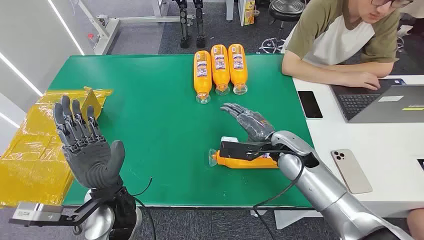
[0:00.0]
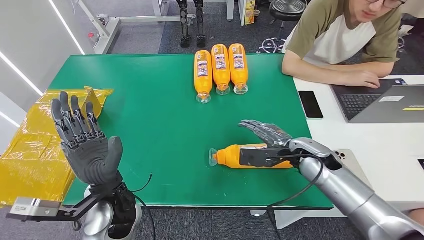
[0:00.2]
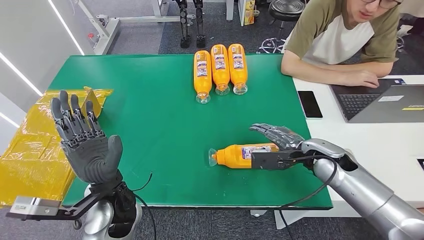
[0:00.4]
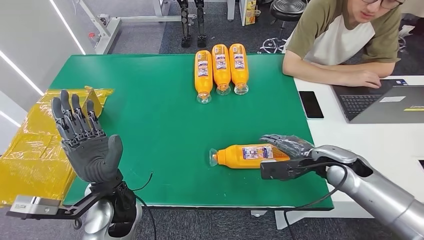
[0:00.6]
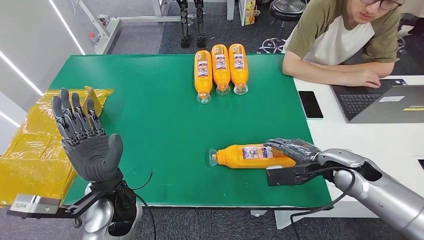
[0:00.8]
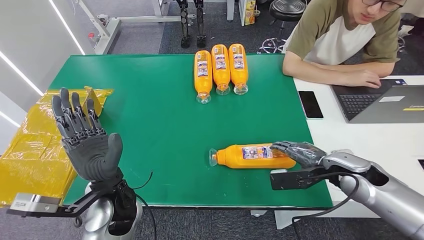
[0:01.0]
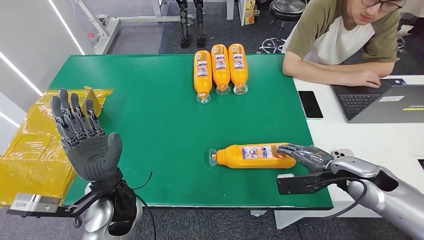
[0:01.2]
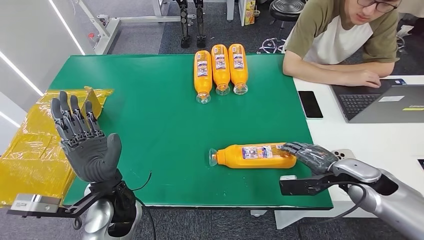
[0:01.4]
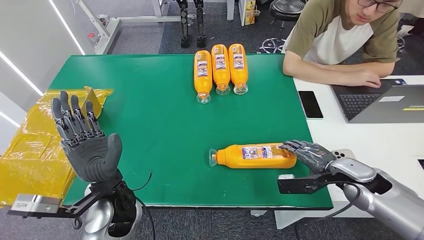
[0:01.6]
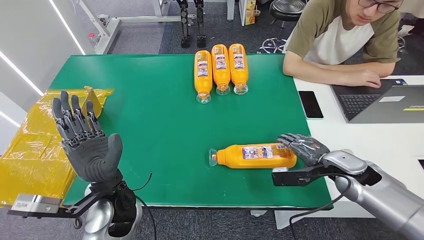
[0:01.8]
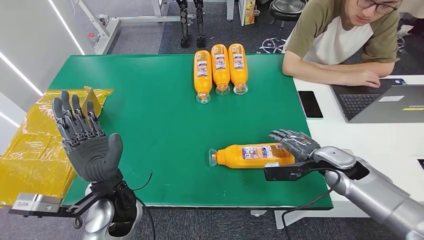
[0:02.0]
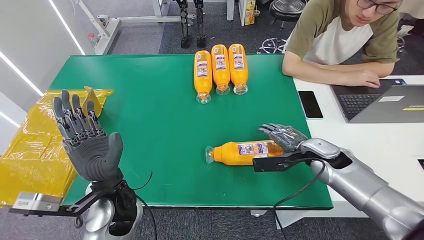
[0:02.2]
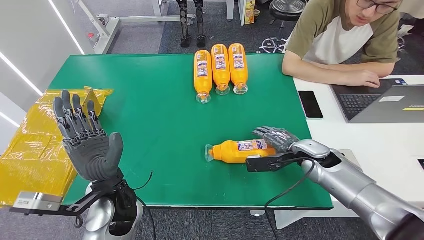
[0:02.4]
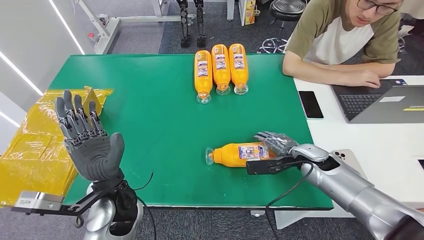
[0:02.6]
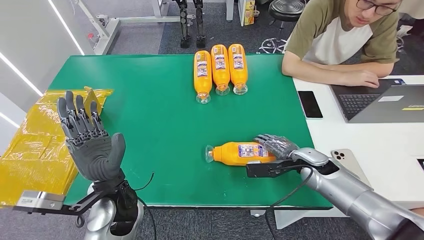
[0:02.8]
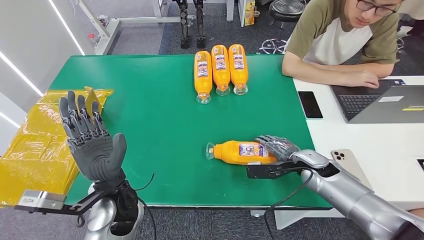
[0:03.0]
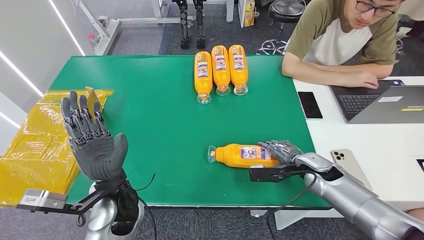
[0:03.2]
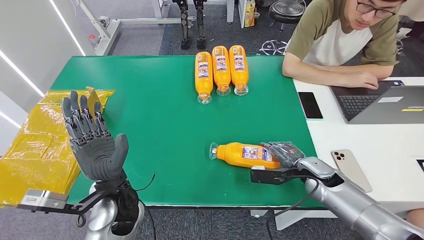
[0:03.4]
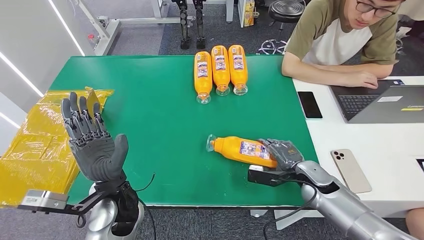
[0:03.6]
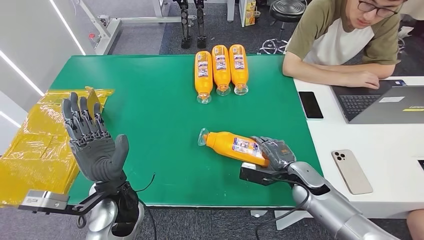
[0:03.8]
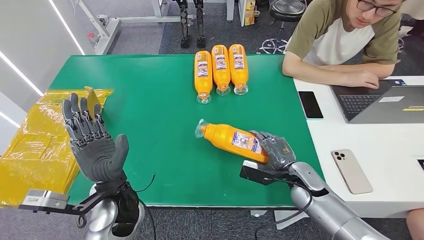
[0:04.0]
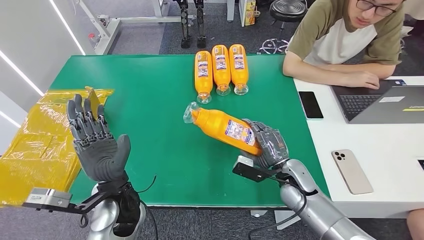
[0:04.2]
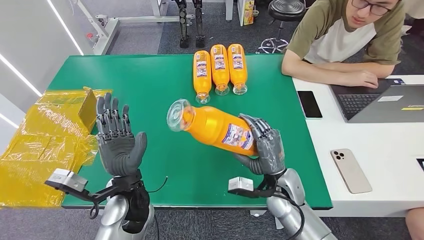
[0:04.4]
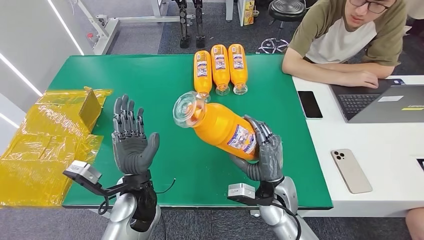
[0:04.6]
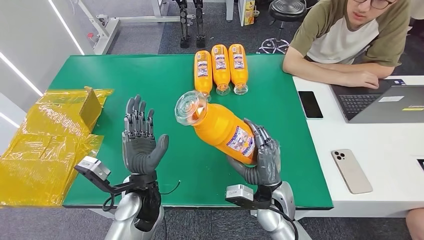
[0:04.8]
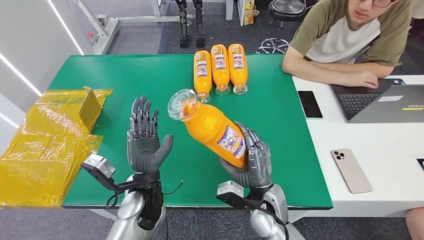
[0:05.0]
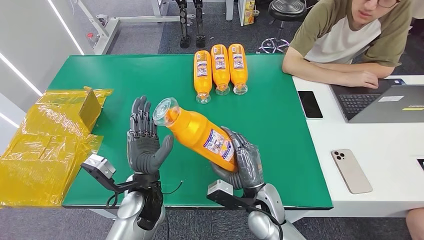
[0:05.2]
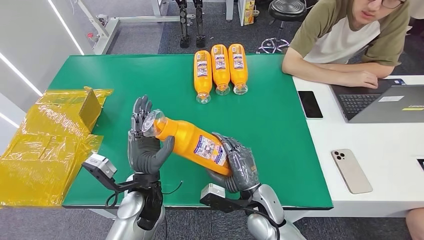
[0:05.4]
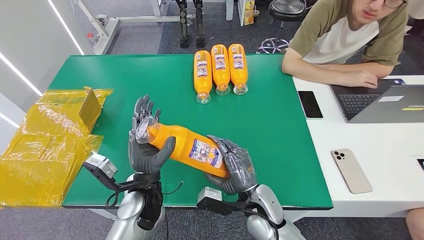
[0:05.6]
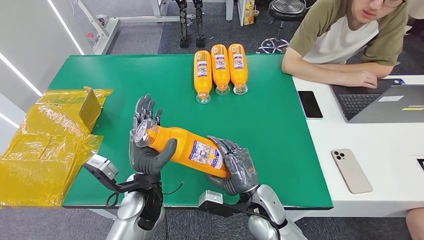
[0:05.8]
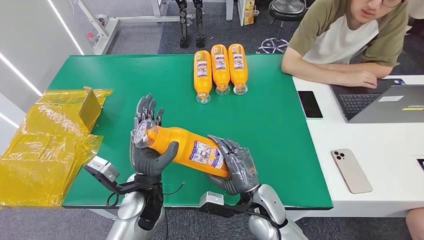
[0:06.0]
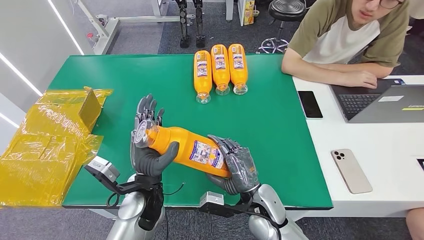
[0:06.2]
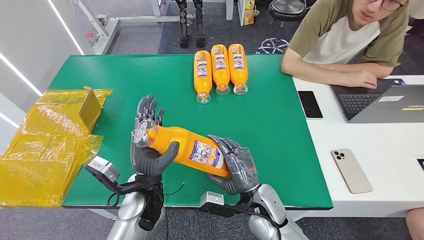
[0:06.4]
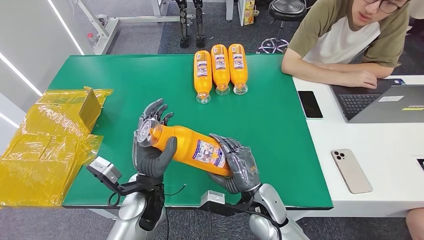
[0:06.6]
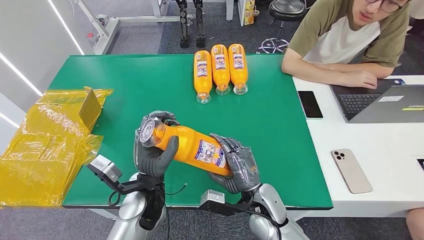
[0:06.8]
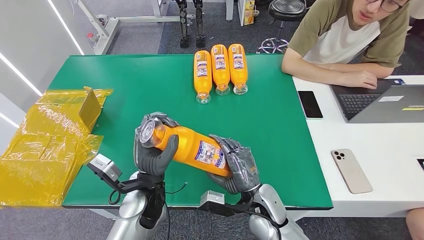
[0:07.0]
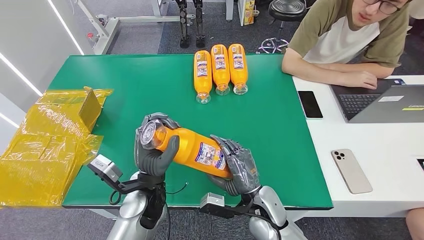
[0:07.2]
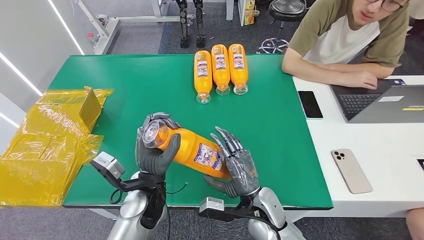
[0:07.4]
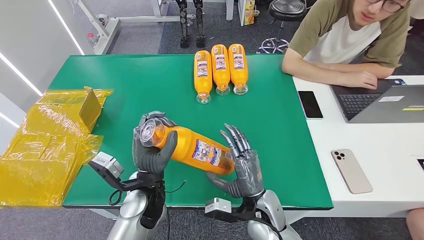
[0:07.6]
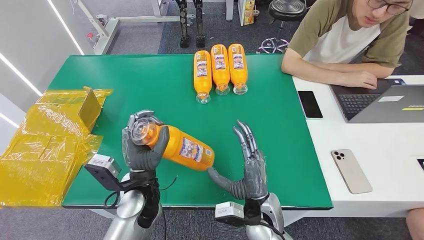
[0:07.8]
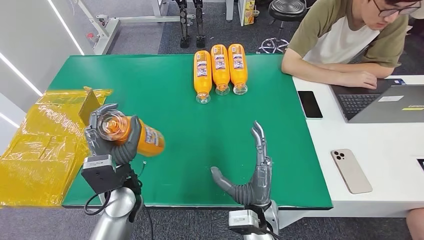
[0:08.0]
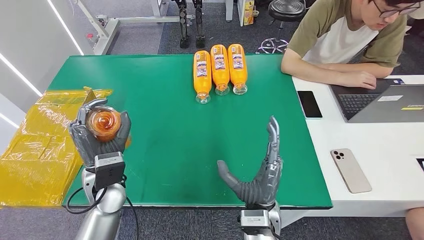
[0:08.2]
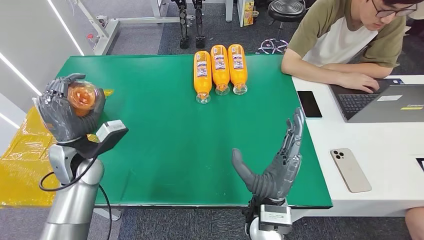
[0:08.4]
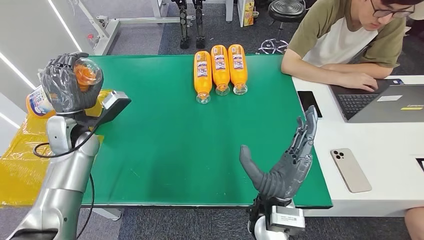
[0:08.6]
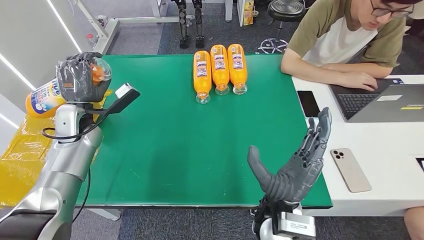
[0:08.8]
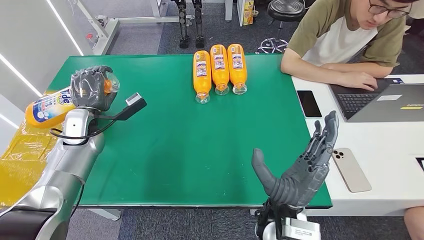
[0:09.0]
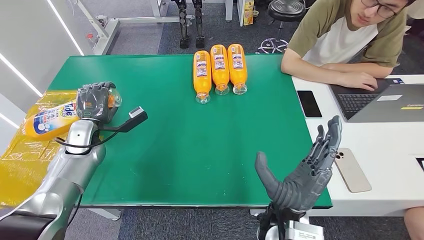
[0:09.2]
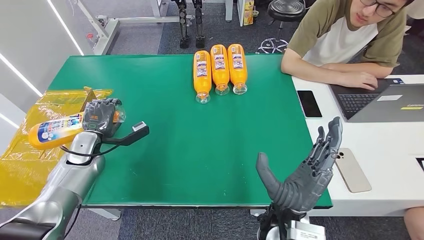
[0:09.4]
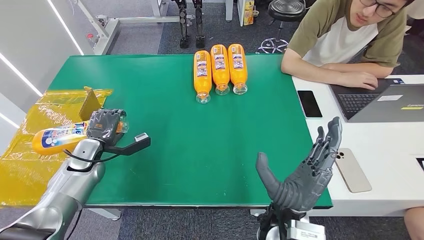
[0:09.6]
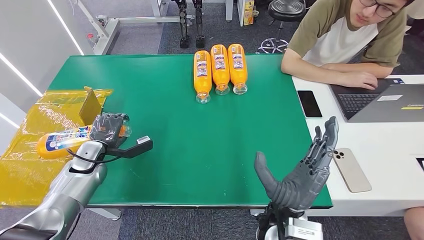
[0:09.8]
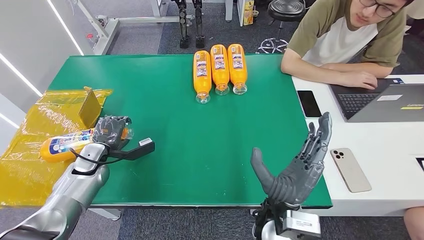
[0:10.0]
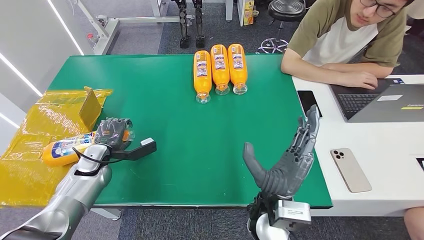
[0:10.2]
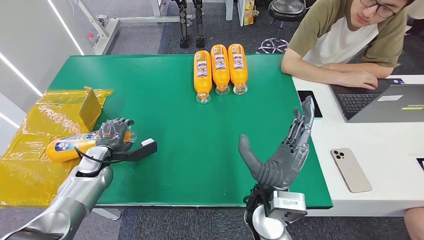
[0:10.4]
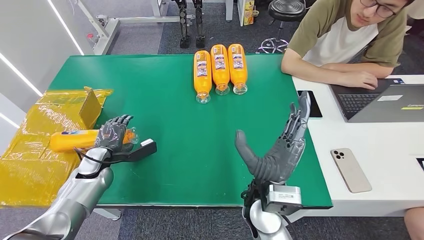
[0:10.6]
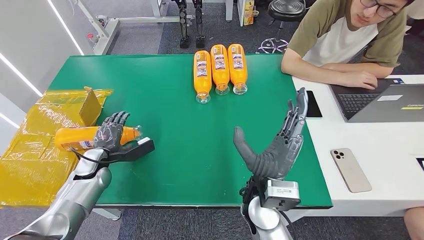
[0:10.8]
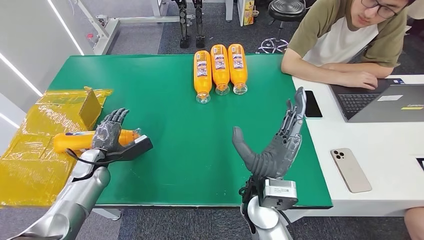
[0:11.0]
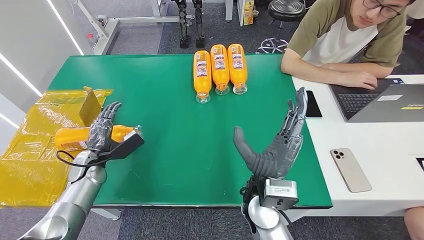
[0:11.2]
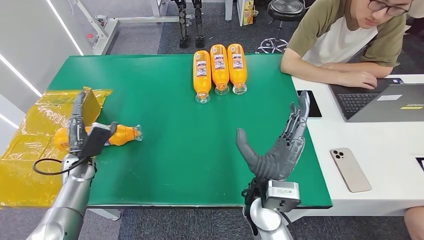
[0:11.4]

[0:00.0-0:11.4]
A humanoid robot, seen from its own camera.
Step, 0:00.0 to 0:04.6: Pick up the bottle from the table.
Step, 0:04.8 to 0:11.4: Turn the bottle to the front side.
0:01.4 to 0:02.8: The right hand heads forward, to the left and downward, covering roughly 10 cm.
0:02.8 to 0:04.2: The right hand is displaced to the left by about 5 cm.
0:05.6 to 0:07.2: The hands stay close to where they were, moving slightly.
0:08.6 to 0:10.0: The left hand shifts approximately 15 cm downward and backward.
